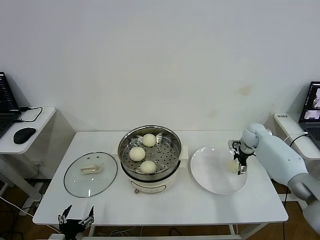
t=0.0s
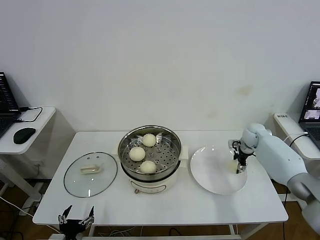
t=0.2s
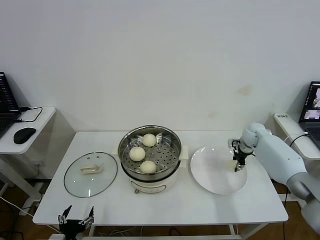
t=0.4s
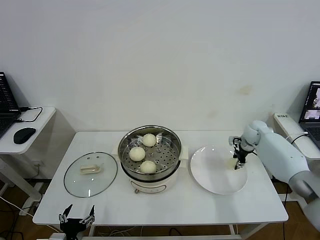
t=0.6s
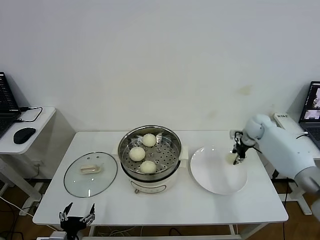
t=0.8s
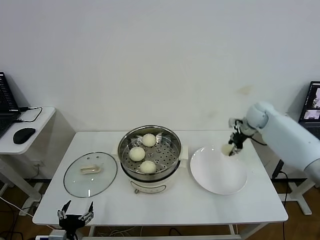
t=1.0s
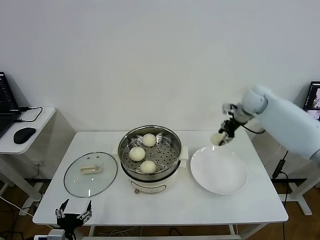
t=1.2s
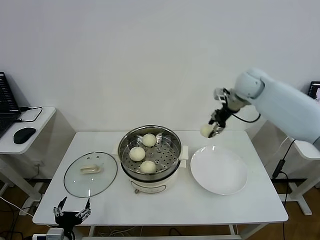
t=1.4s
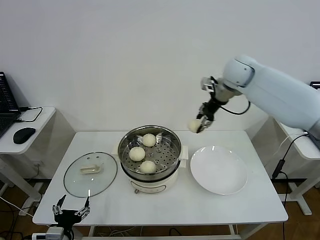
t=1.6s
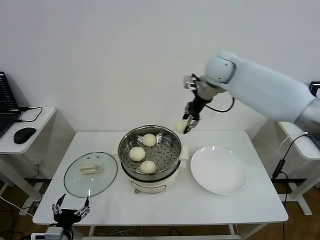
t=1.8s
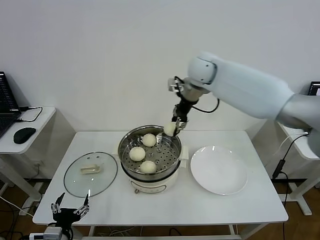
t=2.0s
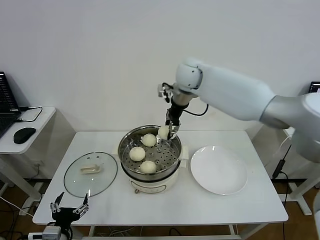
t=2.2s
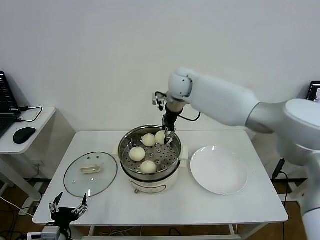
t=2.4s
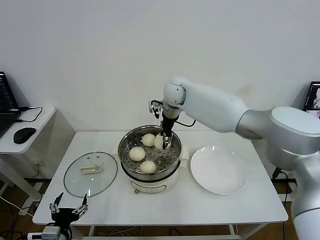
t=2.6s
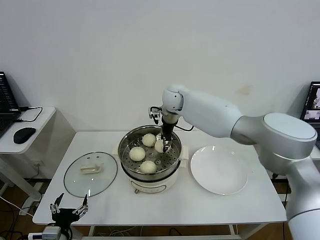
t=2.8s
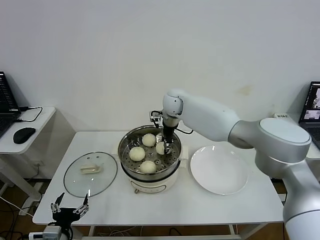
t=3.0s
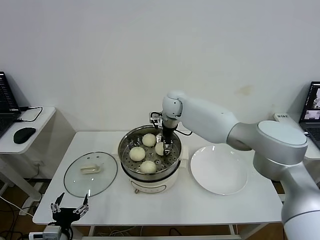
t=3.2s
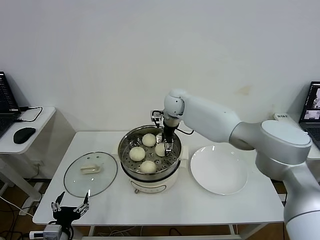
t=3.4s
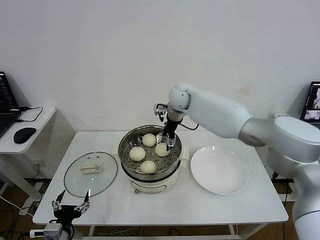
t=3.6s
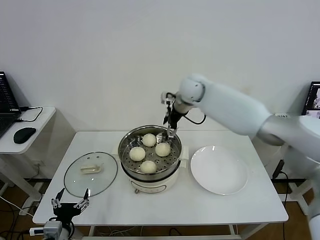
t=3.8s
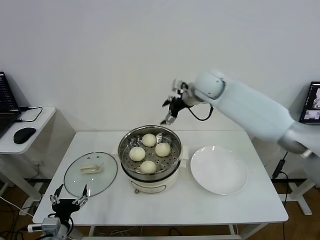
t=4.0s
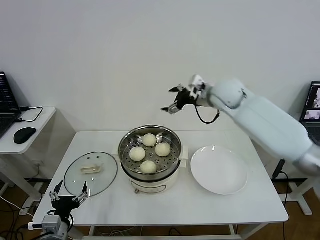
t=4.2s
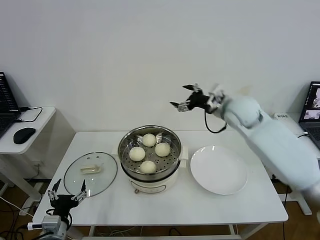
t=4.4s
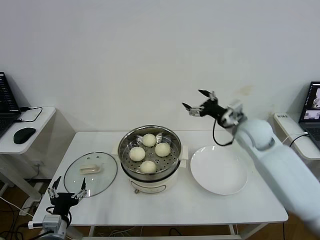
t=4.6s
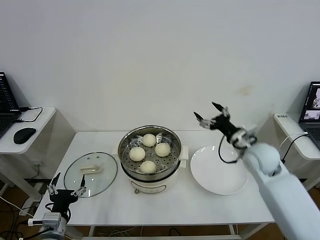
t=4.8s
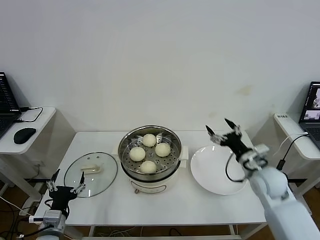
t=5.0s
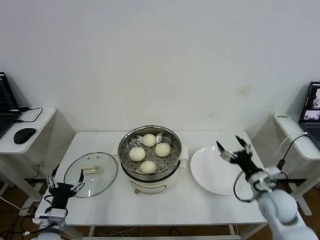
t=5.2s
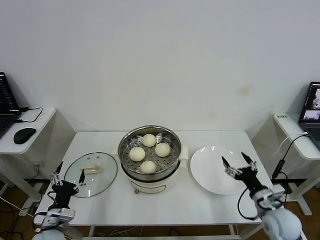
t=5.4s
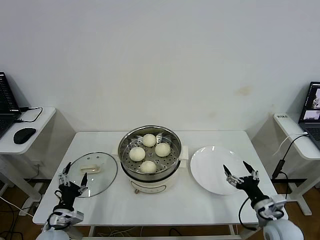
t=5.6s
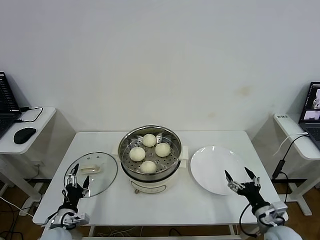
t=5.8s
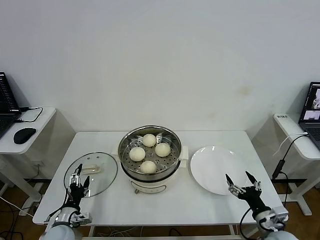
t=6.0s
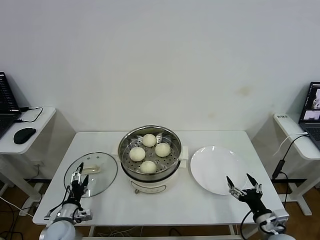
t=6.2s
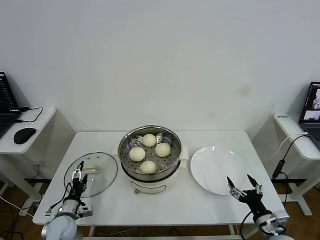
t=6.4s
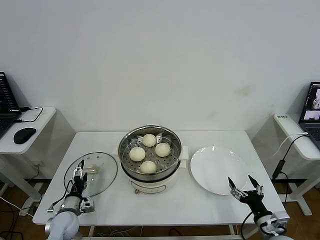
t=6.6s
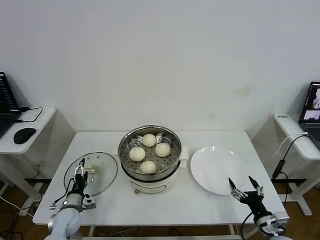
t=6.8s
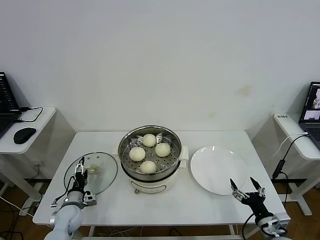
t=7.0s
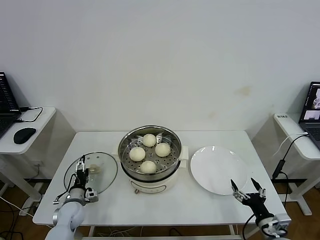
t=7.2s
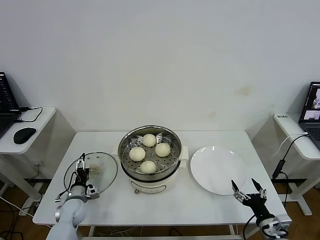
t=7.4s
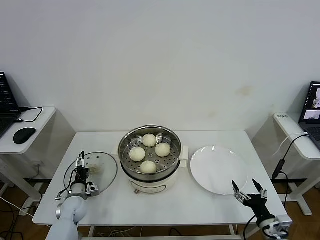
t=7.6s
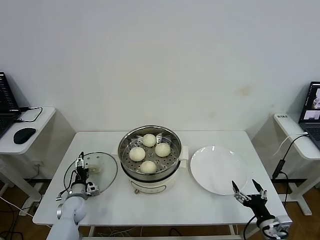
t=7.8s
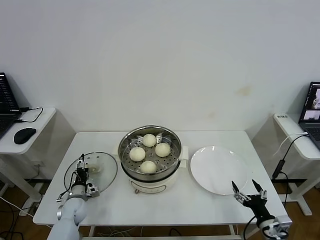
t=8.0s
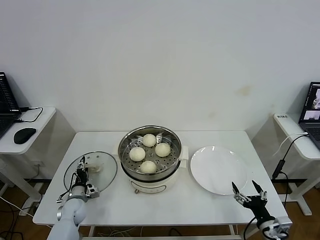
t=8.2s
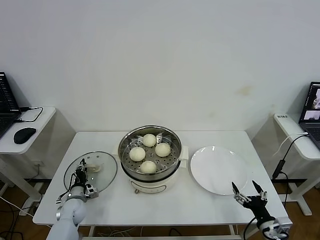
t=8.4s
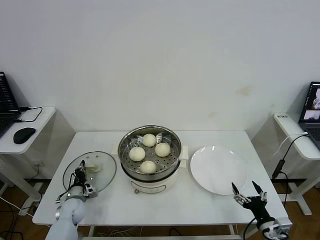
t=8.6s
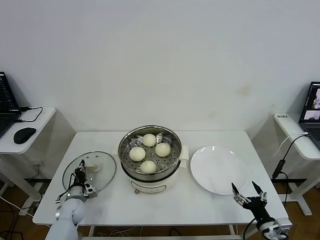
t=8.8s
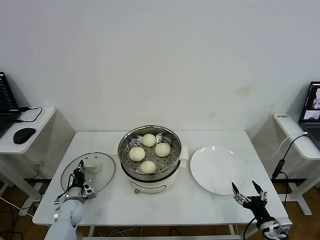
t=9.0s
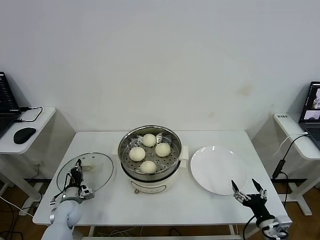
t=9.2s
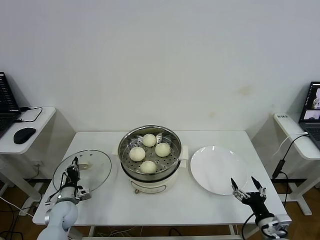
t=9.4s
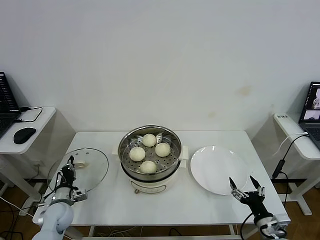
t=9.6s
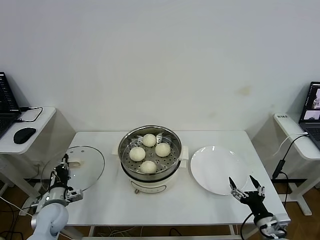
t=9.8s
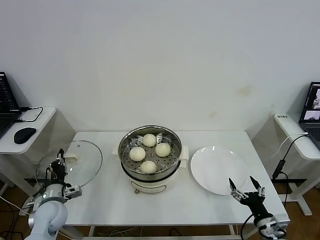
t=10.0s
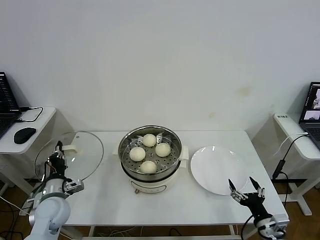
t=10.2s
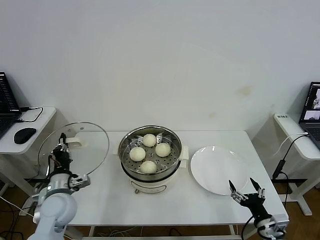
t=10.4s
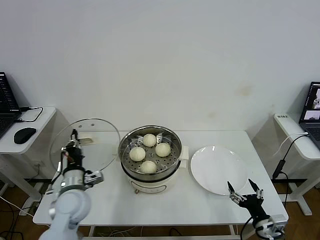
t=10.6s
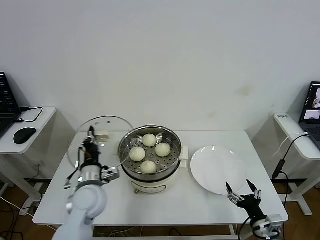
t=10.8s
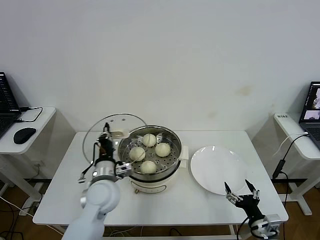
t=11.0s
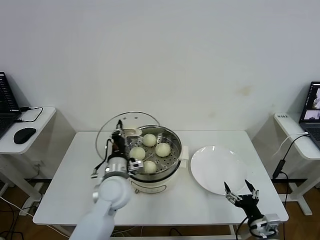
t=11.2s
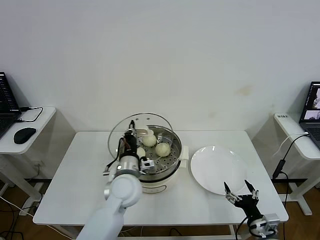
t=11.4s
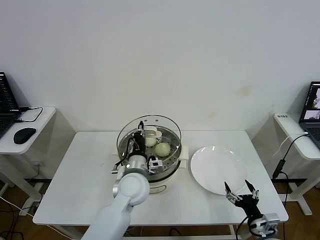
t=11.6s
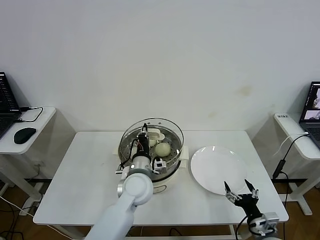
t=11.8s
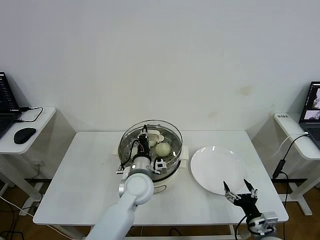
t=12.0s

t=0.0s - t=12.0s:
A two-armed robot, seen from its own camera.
Step, t=0.4s - t=3.4s: Place the baozi on the steamer with right gripper.
Step, t=3.6s - t=8.6s: Grasp the pot lid with left gripper.
t=0.0s - t=1.6s: The right gripper heads upward and to the left, covering roughly 30 cm, and closes up.
t=1.6s - t=3.0s: The right gripper heads to the left and downward, covering some 25 cm.
t=3.0s - t=4.4s: The right gripper is displaced to the right and backward by about 20 cm, and opens.
t=4.4s - t=6.0s: The right gripper travels backward and downward by about 40 cm. Meanwhile the left gripper goes approximately 10 cm downward and forward.
t=6.0s - t=7.6s: The left gripper goes about 10 cm forward.
t=7.6s - t=9.0s: The left gripper closes its fingers.
t=9.0s - t=10.4s: The left gripper travels upward by roughly 20 cm.
t=10.4s - t=12.0s: The left gripper shifts some 25 cm to the right.

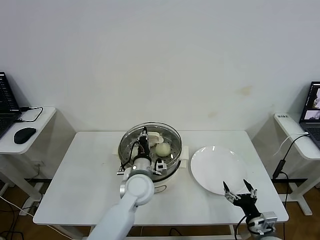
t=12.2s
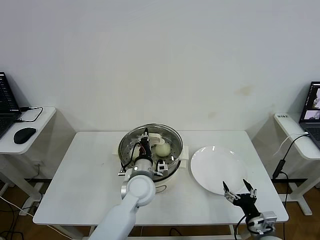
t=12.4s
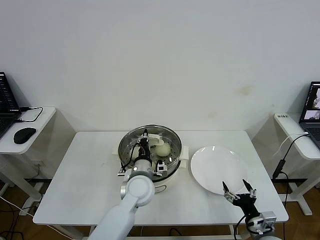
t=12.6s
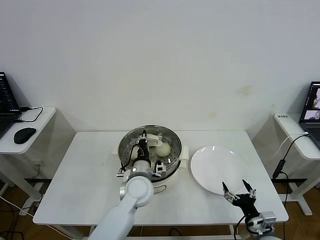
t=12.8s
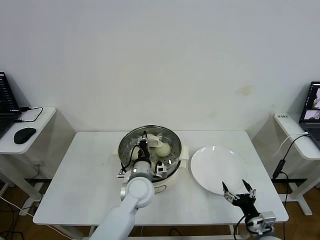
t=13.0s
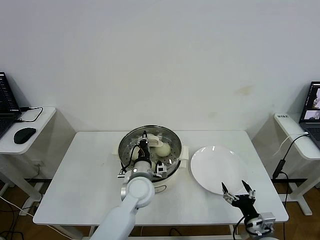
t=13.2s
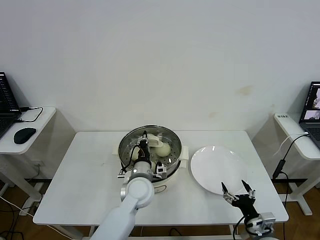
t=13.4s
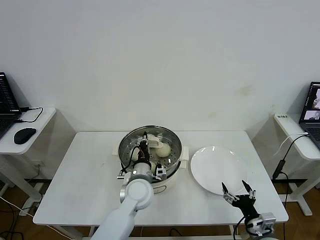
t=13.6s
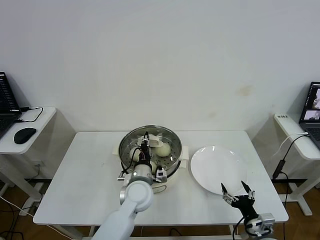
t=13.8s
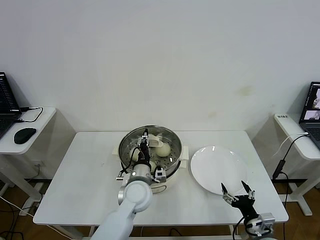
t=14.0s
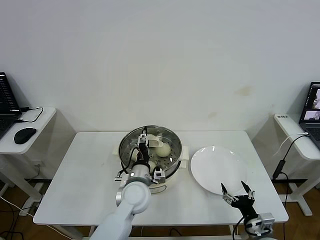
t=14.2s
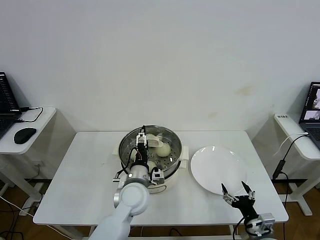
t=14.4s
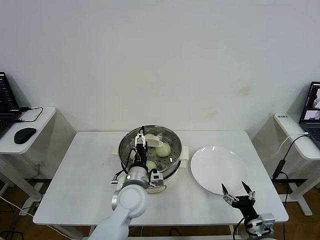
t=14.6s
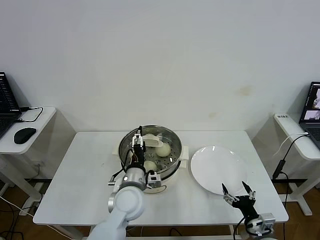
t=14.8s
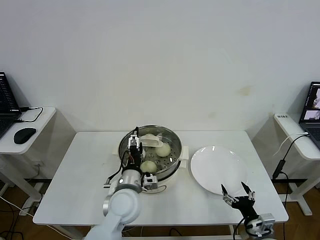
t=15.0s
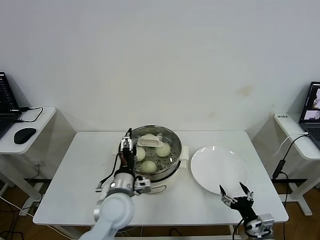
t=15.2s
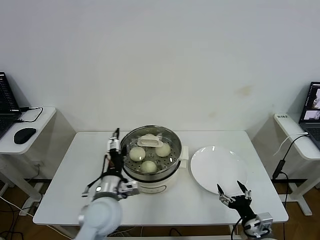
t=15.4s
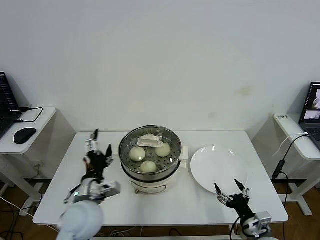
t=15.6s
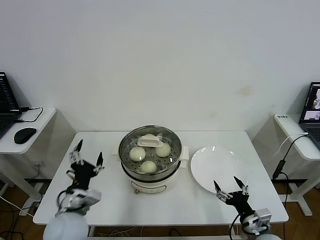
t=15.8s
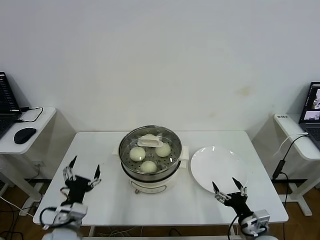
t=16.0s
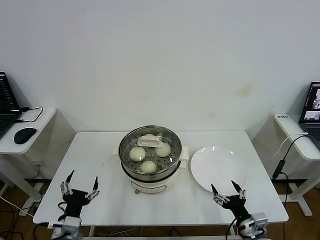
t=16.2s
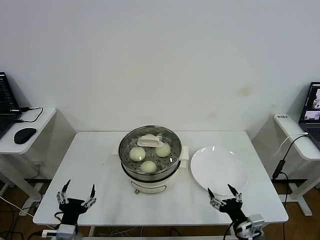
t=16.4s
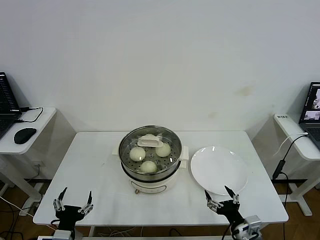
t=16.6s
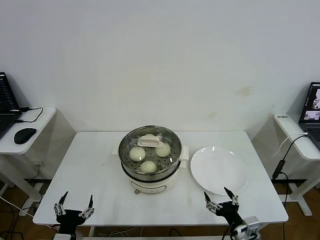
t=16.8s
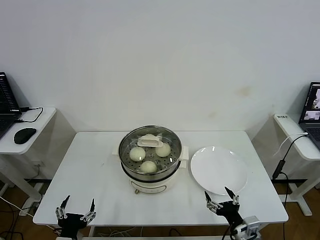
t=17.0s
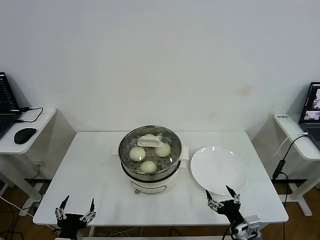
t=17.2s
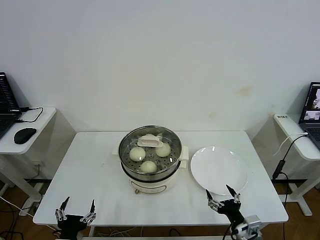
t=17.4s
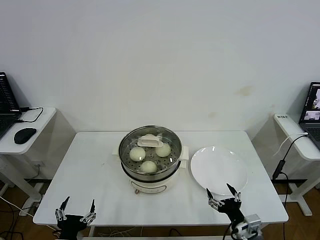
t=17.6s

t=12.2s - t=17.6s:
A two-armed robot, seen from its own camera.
t=12.2s - t=13.6s: The grippers stay close to where they were, moving slightly.
t=13.6s - t=15.0s: The left gripper ends up some 5 cm from where it was, and opens up.
t=15.0s - t=16.2s: The left gripper moves to the left and backward, about 20 cm.
t=16.2s - t=17.6s: The left gripper is displaced backward by about 10 cm.

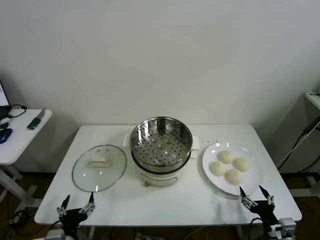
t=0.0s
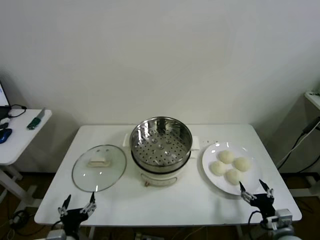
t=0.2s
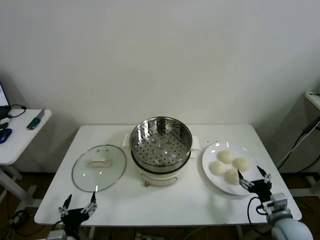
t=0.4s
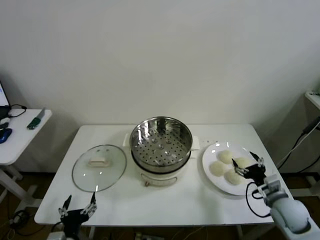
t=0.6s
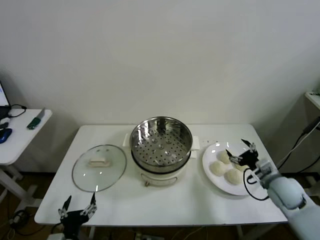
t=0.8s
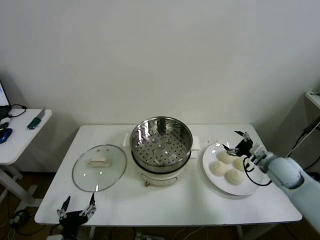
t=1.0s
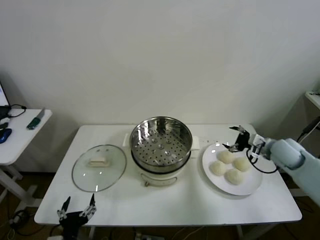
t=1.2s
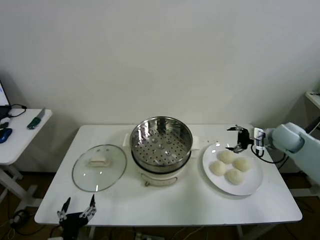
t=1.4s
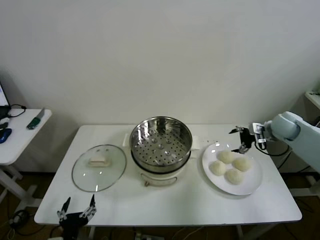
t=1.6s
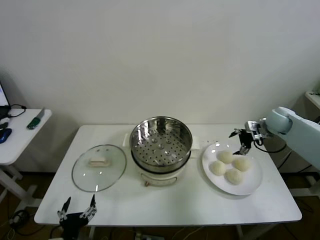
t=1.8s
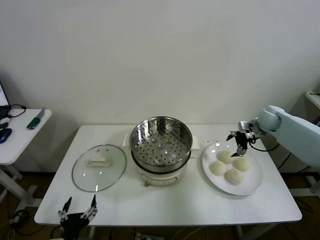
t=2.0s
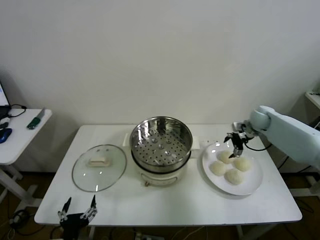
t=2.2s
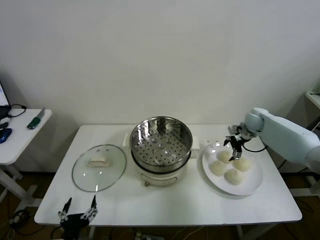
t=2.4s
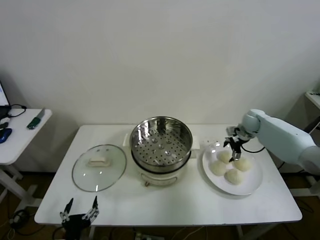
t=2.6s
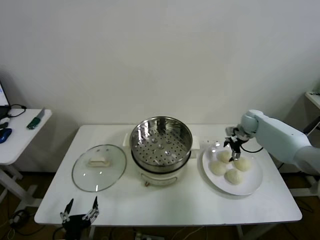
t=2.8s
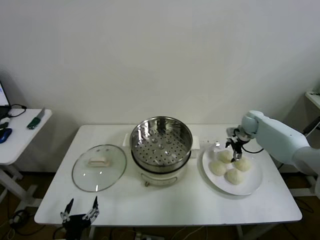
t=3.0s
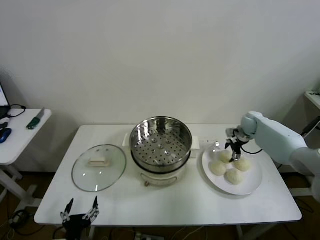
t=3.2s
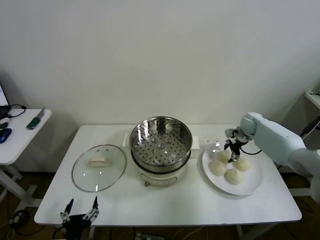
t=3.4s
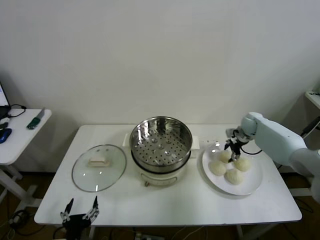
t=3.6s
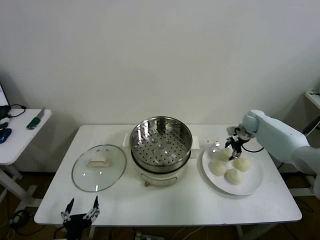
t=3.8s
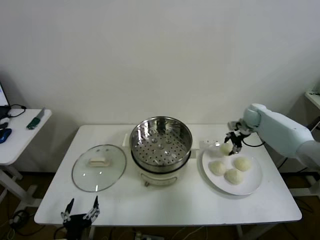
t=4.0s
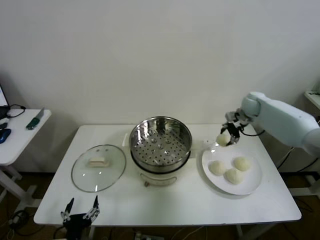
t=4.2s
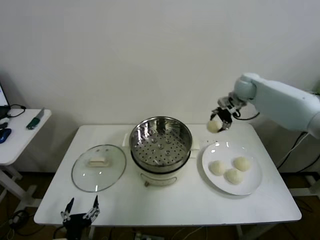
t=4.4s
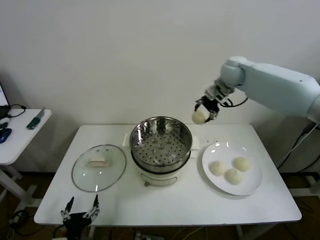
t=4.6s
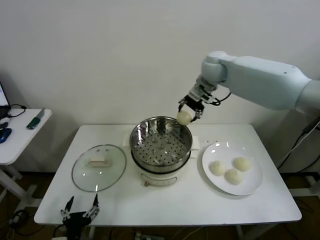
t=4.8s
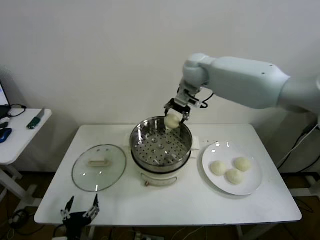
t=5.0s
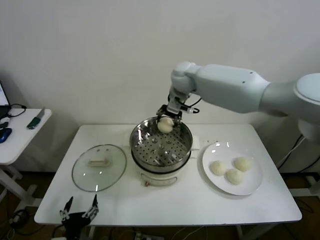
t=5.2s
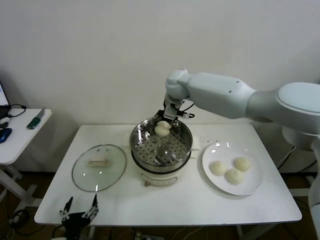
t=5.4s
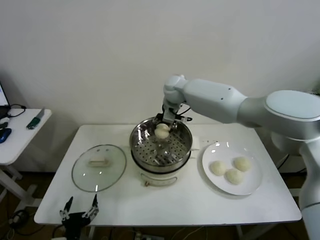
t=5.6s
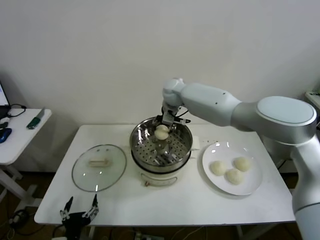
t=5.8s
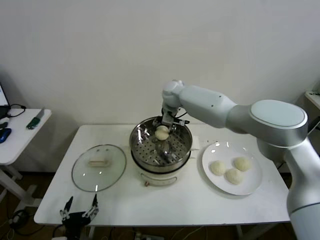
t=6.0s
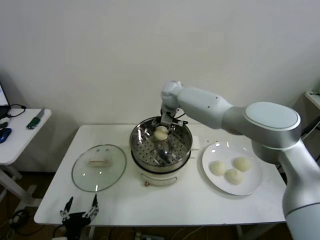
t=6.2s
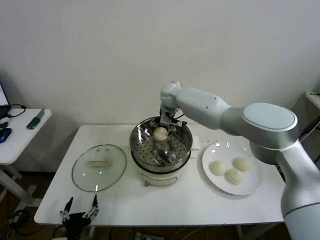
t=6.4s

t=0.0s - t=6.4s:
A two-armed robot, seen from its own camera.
Step, t=0.0s - t=3.6s: Grasp the baozi in the plate with right gripper.
Step, t=3.8s - t=6.4s: Place the baozi on the steamer with right gripper.
t=1.6s - t=3.2s: The right gripper is displaced forward and downward by approximately 15 cm, and closes up.
t=3.2s - t=4.8s: The right gripper goes approximately 35 cm upward and to the left, and closes its fingers.
t=4.8s - t=6.4s: The right gripper shifts some 20 cm to the left and downward, and opens.
